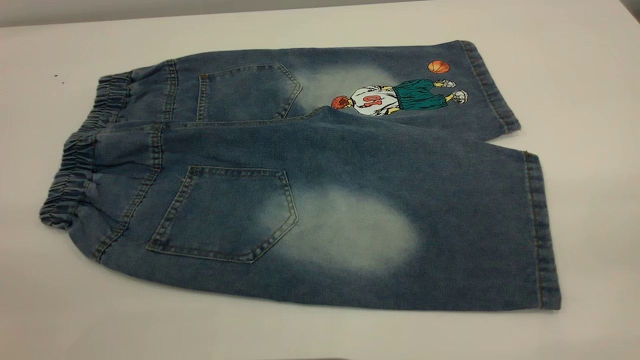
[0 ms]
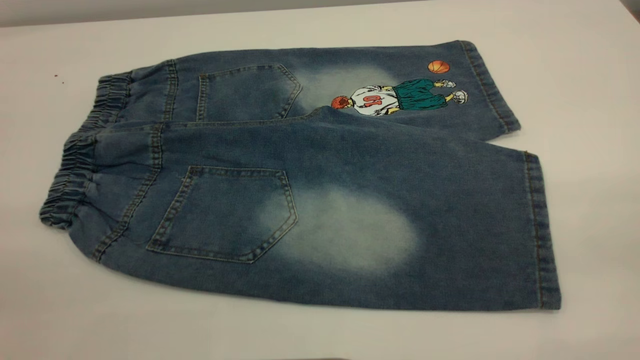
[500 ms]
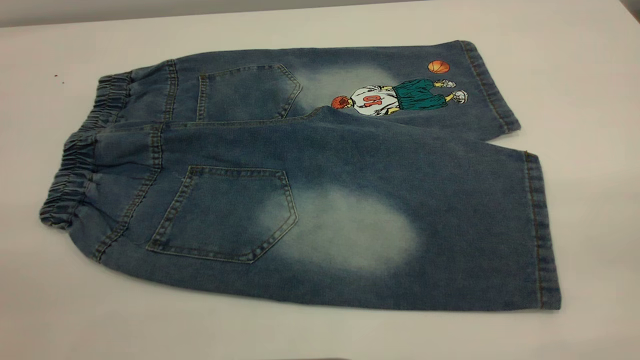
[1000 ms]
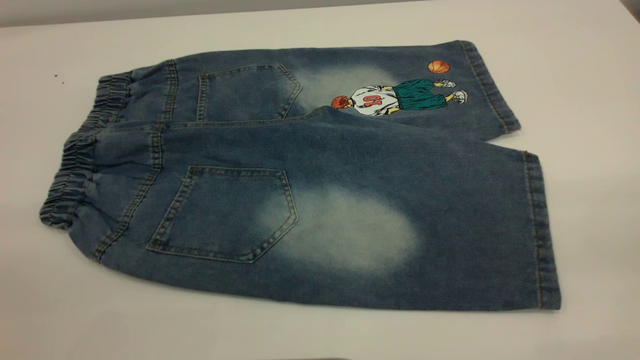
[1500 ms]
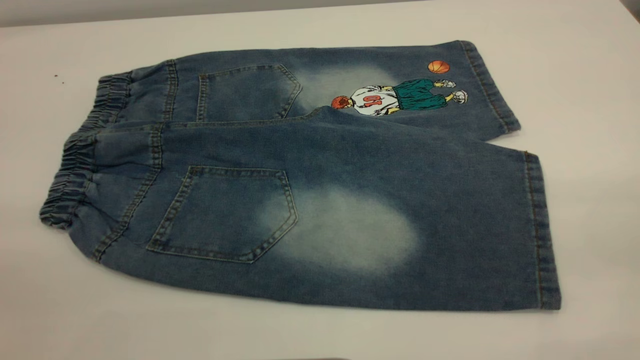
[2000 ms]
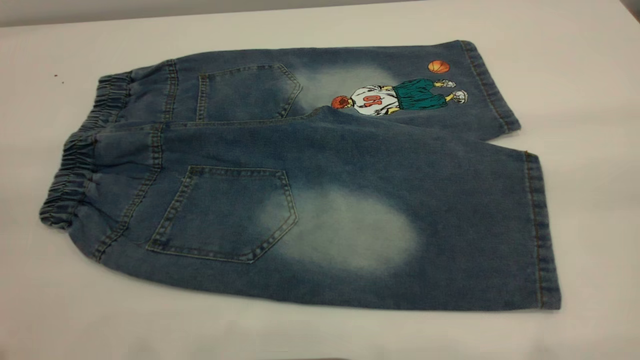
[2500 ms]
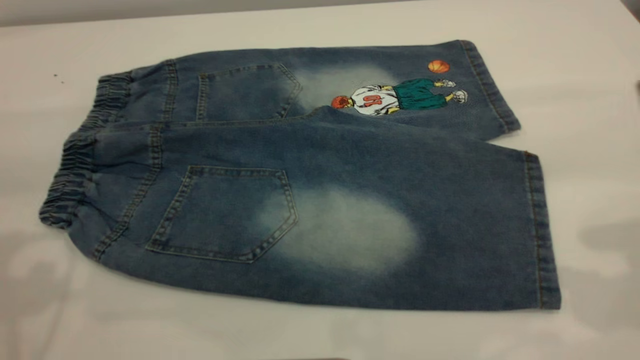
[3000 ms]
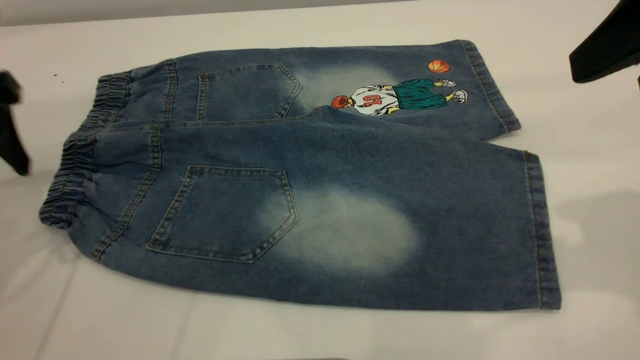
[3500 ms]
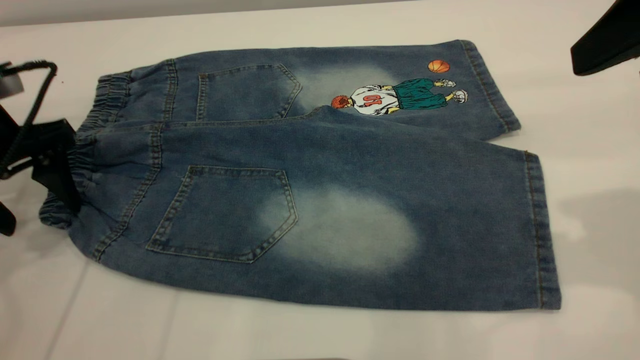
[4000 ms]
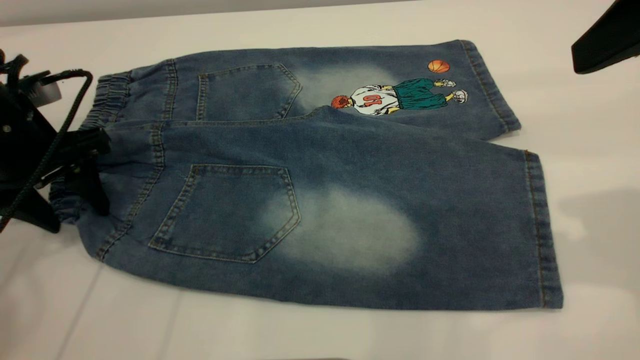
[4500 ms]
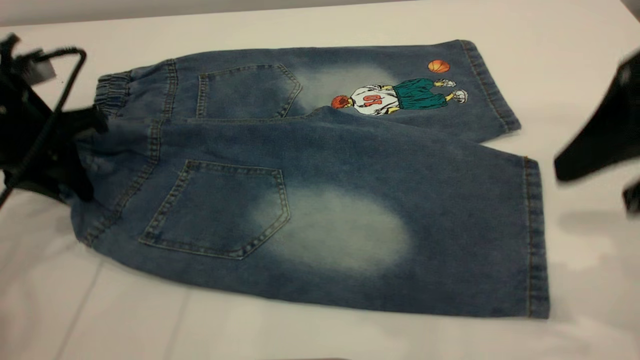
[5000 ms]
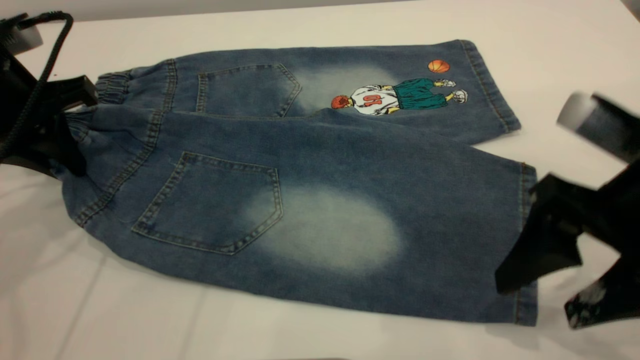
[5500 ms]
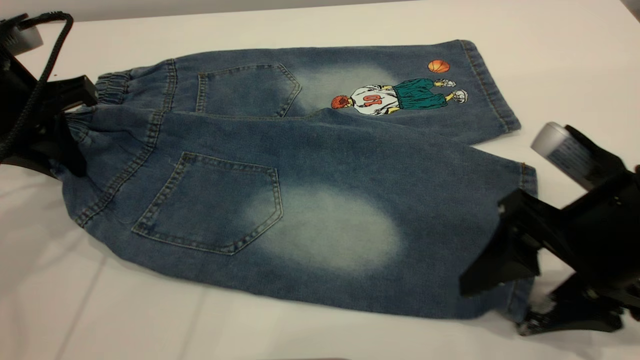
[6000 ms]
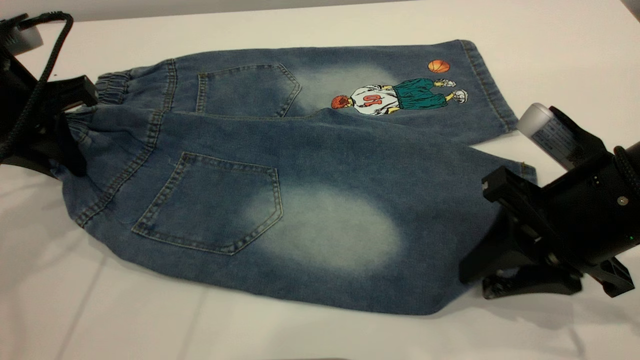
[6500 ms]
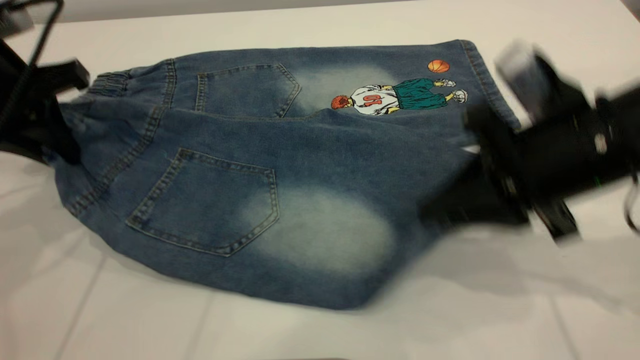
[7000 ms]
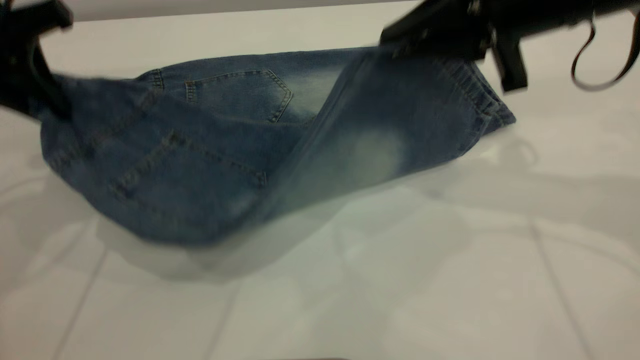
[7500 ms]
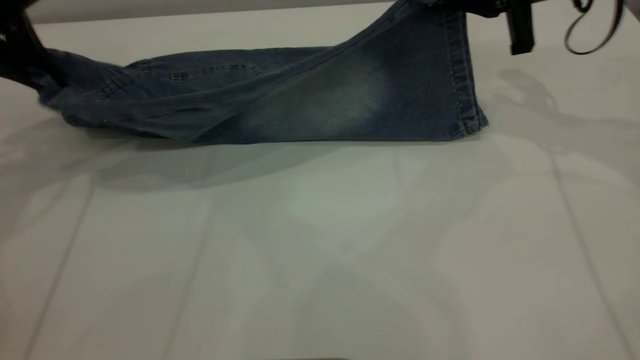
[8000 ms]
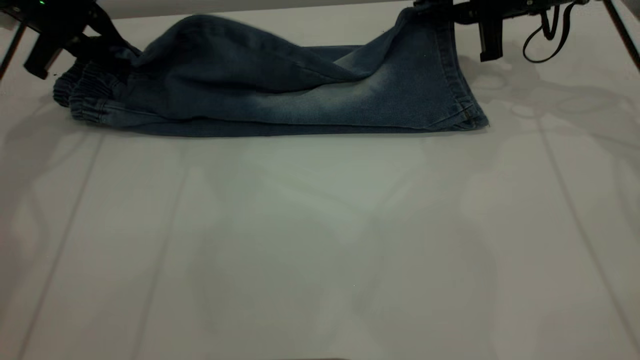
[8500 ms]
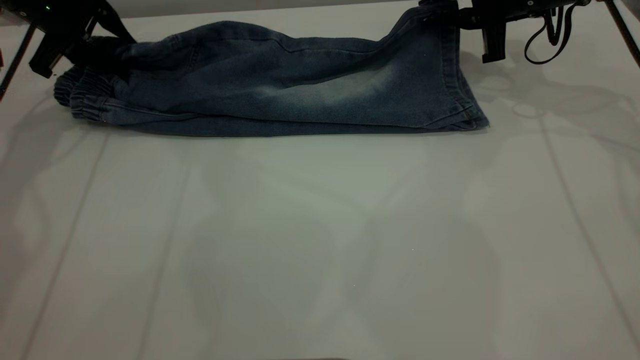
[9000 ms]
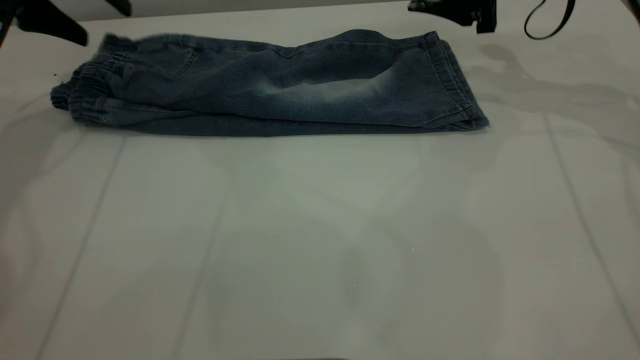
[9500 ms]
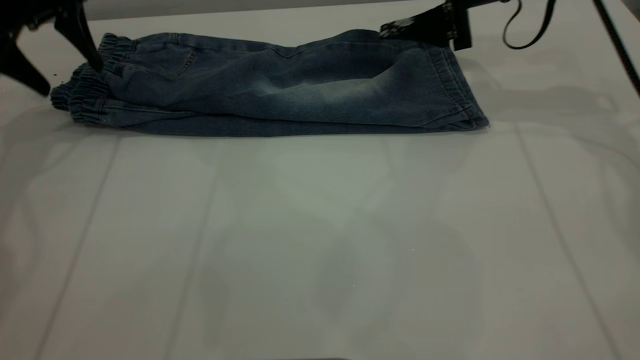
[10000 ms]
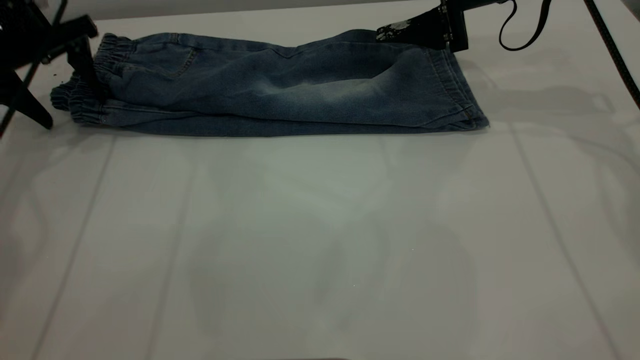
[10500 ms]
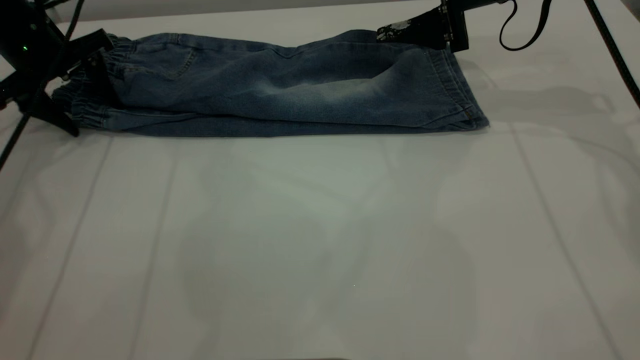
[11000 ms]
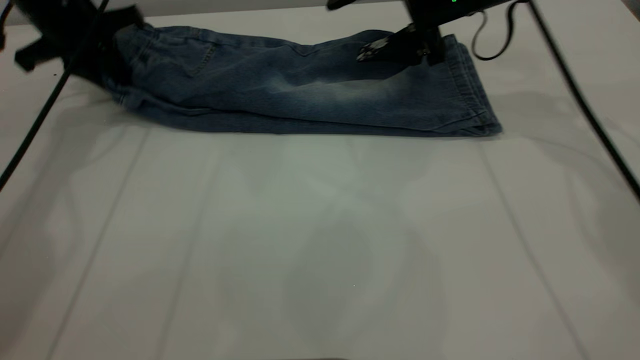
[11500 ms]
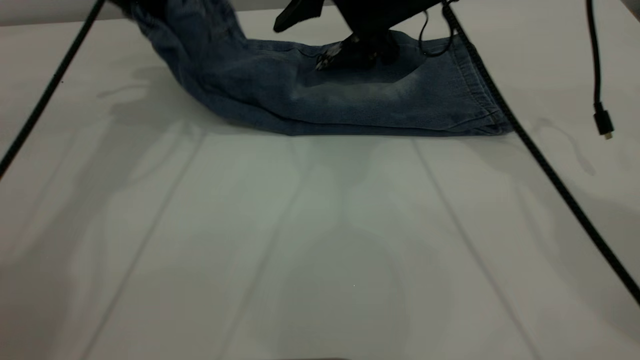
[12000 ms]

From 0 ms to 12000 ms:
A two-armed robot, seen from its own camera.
Step, from 0 ms to 9500 ms: Fold the bottom of the pants upward.
From 0 ms to 2000 ms: Both grippers stay about where they are.
From 2000 ms to 4000 ms: The right gripper shifts approximately 20 cm forward, while the left gripper heads forward and downward, covering roughly 35 cm.
From 4000 ms to 6000 ms: The right gripper moves downward, about 15 cm; the left gripper closes.
From 6000 ms to 8000 ms: The right gripper is displaced forward by about 20 cm, and closes its fingers, while the left gripper moves forward, some 5 cm.
From 8000 ms to 10000 ms: The right gripper moves roughly 5 cm, and opens; the left gripper travels forward by approximately 5 cm, and opens.
From 10000 ms to 12000 ms: The right gripper heads to the left, covering about 10 cm, while the left gripper shifts about 15 cm to the right and upward, and closes.

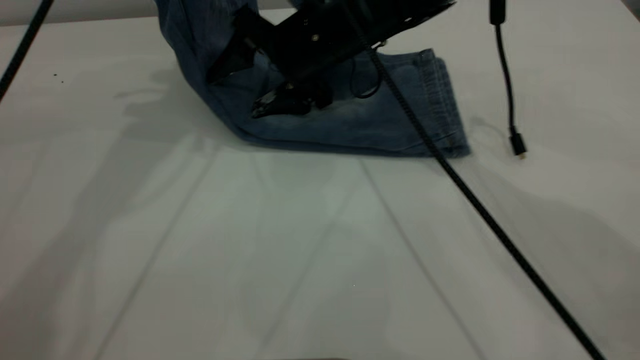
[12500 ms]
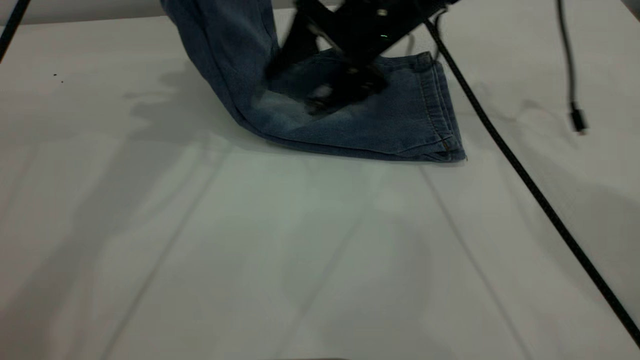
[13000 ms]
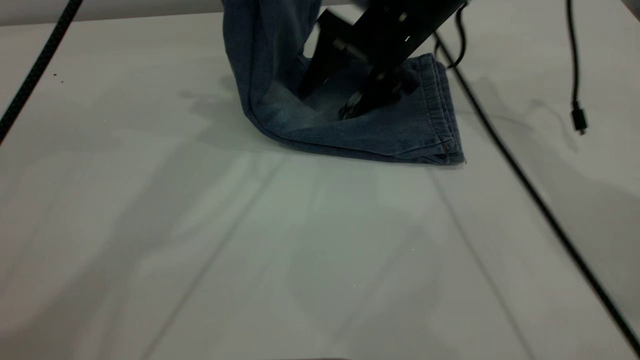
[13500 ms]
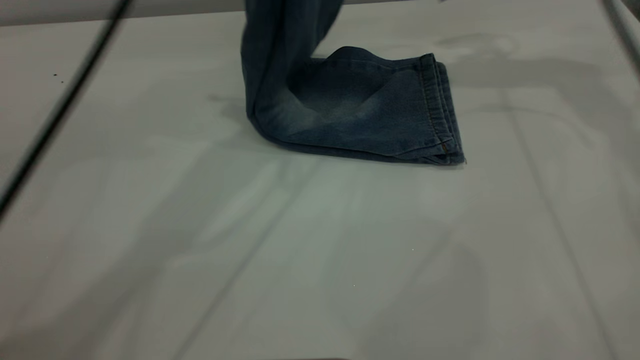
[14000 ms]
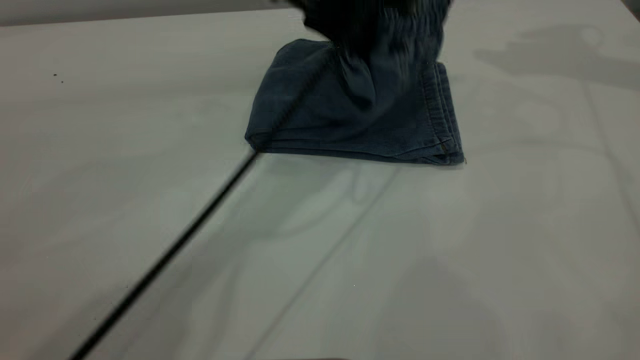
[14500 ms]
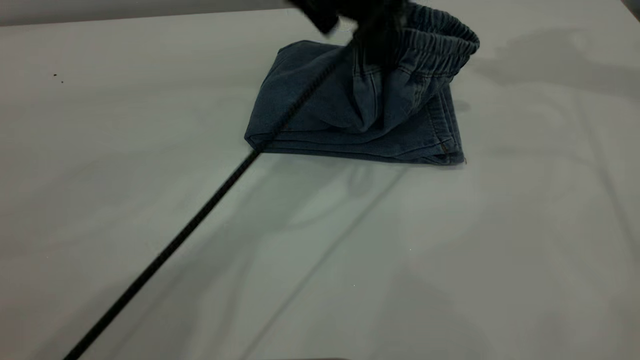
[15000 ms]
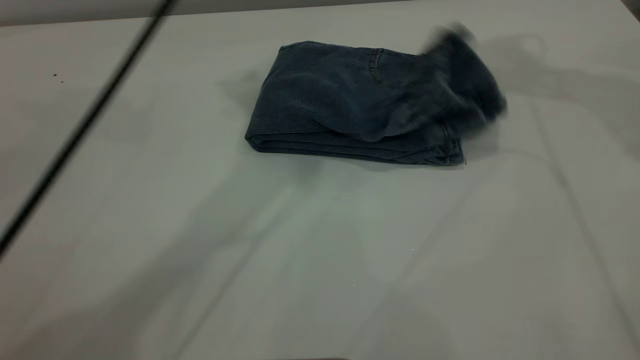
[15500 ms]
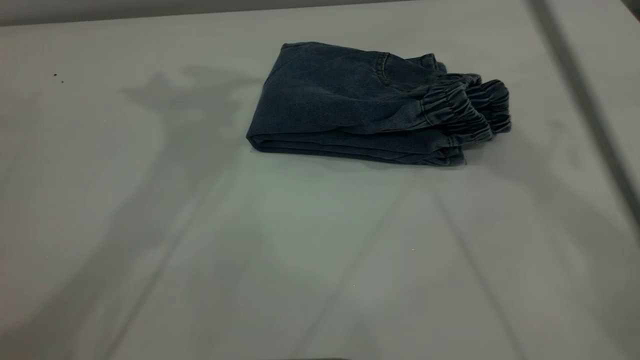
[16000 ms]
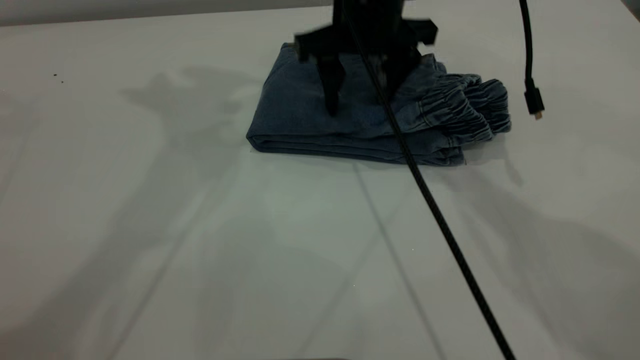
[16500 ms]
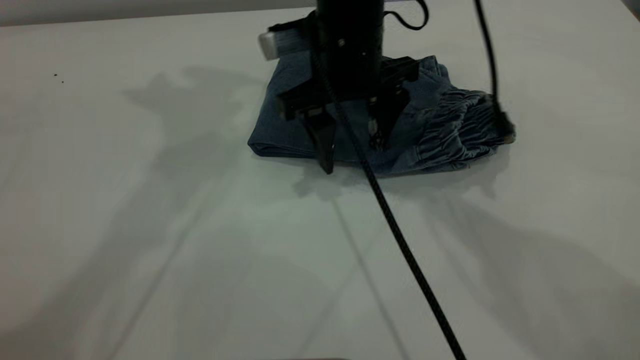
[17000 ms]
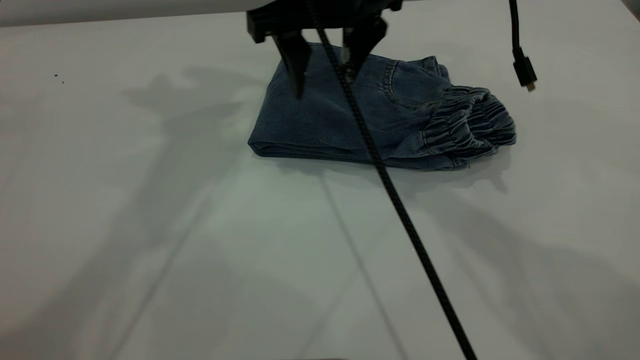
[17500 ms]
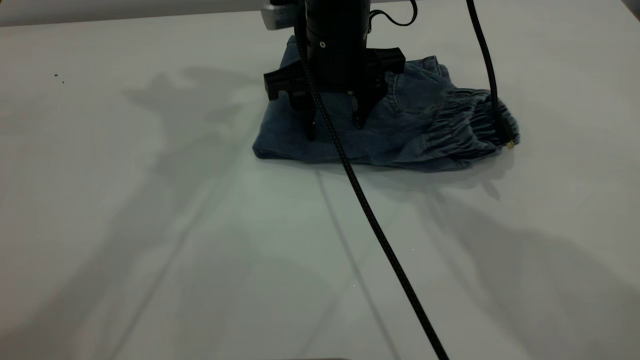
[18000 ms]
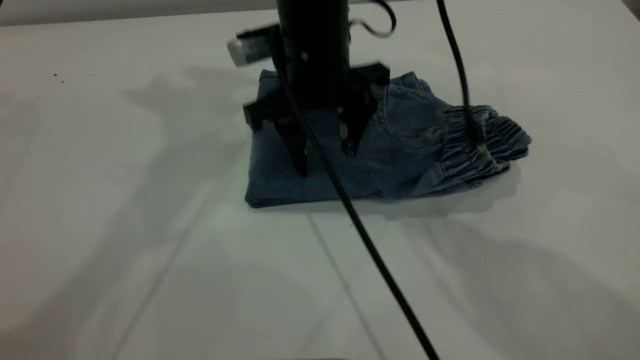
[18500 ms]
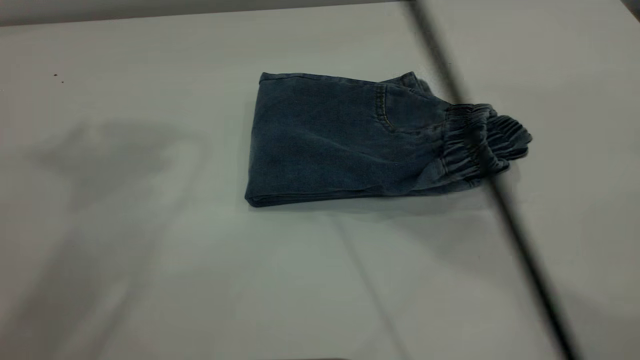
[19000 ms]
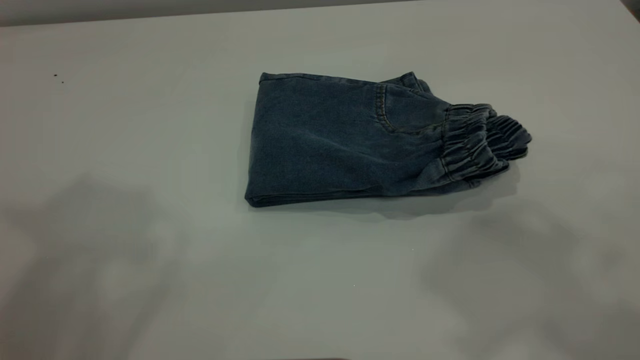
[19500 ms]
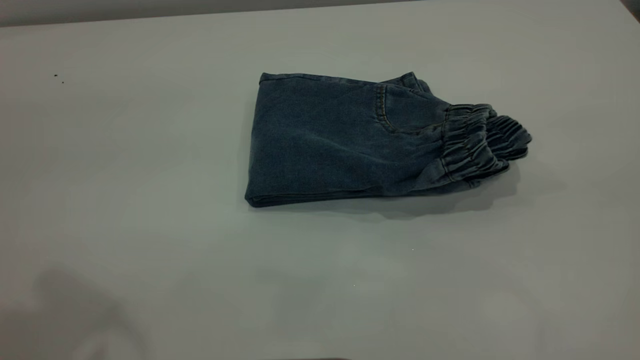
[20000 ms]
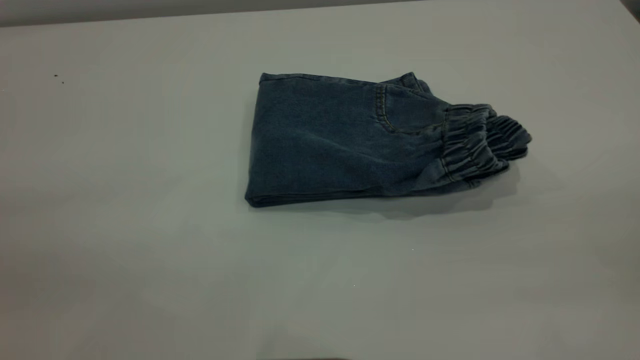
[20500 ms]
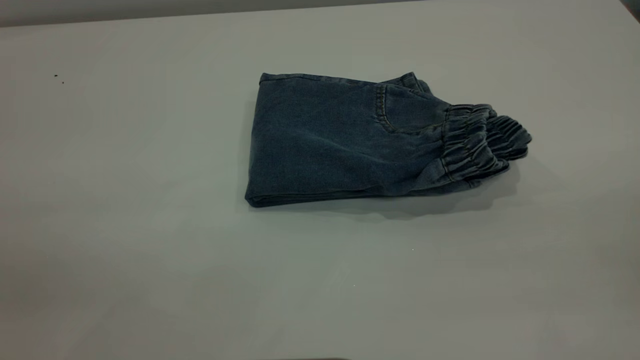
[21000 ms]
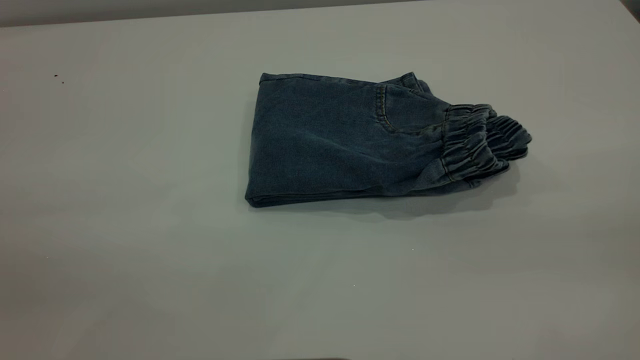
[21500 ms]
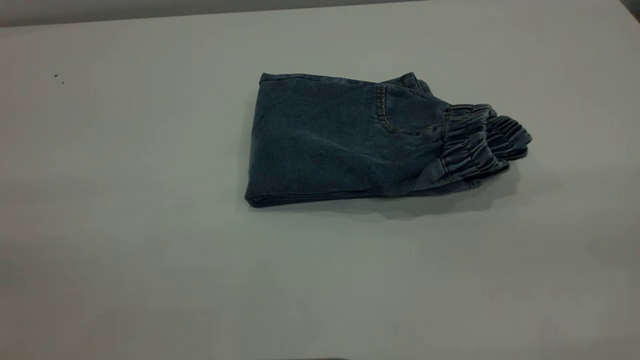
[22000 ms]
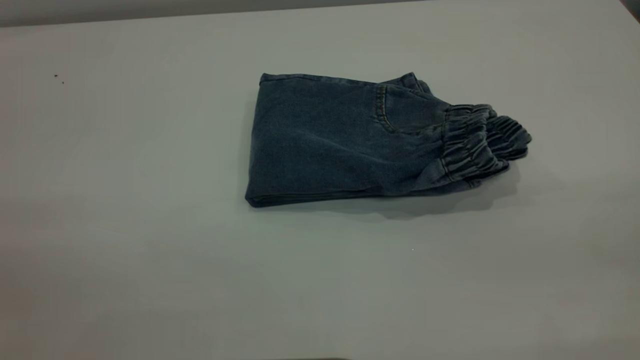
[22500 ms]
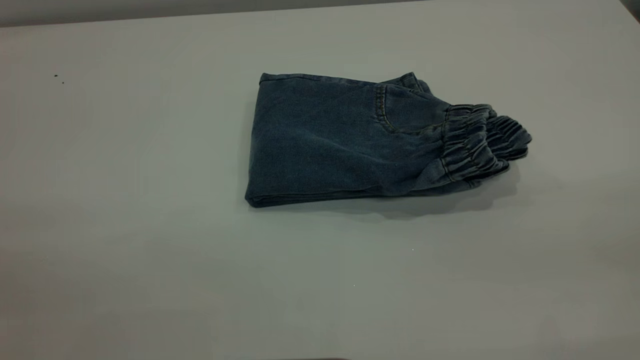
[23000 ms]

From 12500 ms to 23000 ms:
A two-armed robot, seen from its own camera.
Step, from 12500 ms to 16000 ms: Fold the pants from left to right.
From 12500 ms to 14500 ms: The left gripper is displaced to the right and downward by about 20 cm; the right gripper heads to the right and upward, covering roughly 40 cm.
From 14500 ms to 16500 ms: The left gripper heads upward and to the left, covering about 25 cm, and opens up, while the right gripper travels to the left and downward by approximately 30 cm.
From 16500 ms to 19000 ms: The left gripper travels upward, backward and to the left by about 15 cm. Meanwhile the right gripper goes up and down, roughly 30 cm each way, reversing 2 times.
From 19000 ms to 21000 ms: The right gripper is displaced backward and to the right by some 40 cm.
